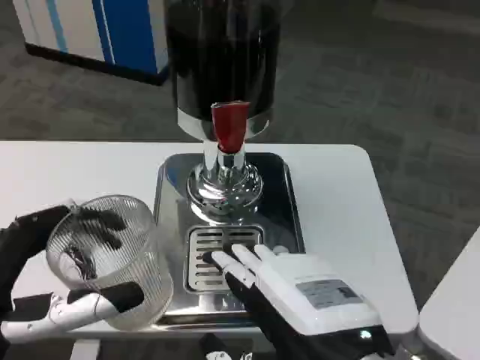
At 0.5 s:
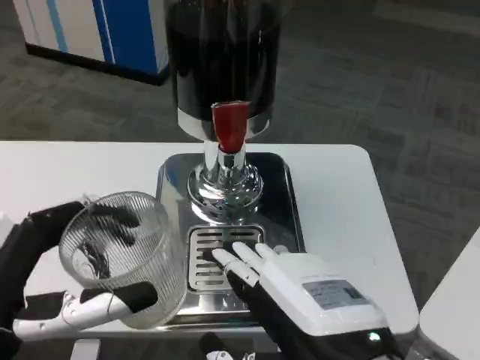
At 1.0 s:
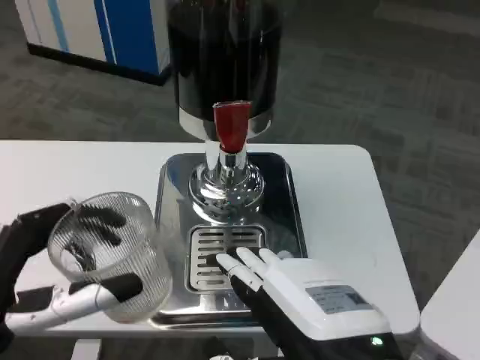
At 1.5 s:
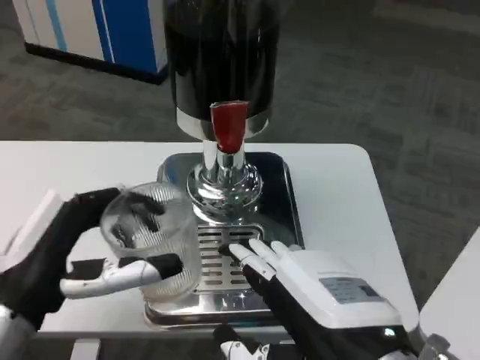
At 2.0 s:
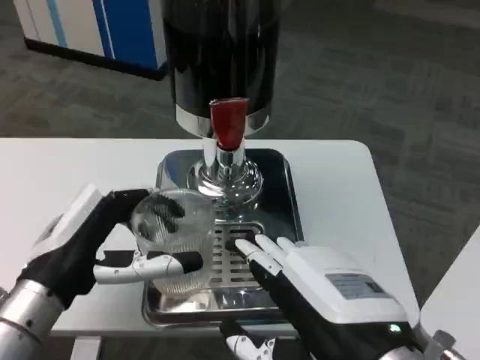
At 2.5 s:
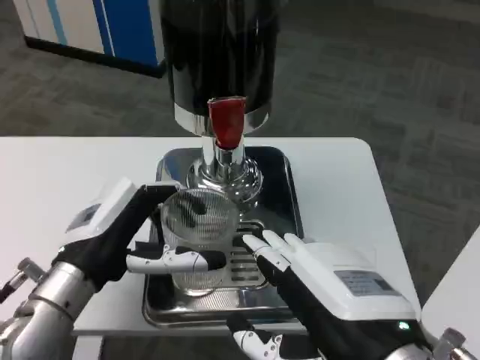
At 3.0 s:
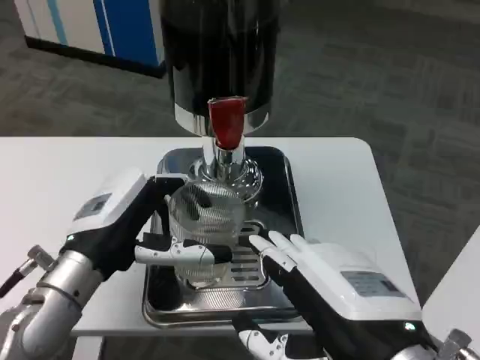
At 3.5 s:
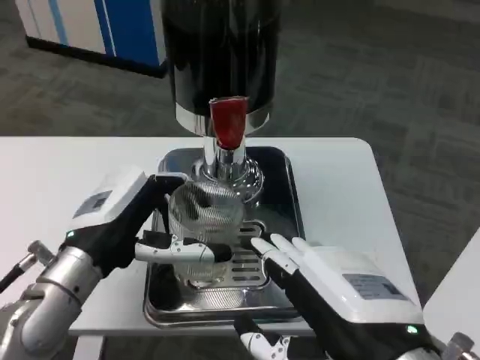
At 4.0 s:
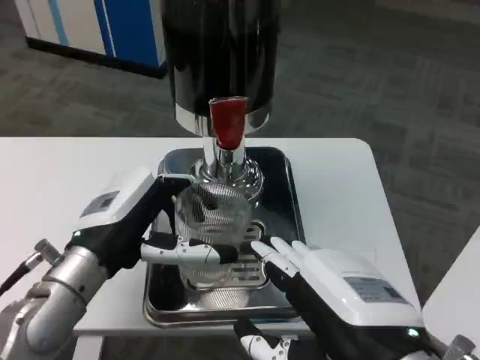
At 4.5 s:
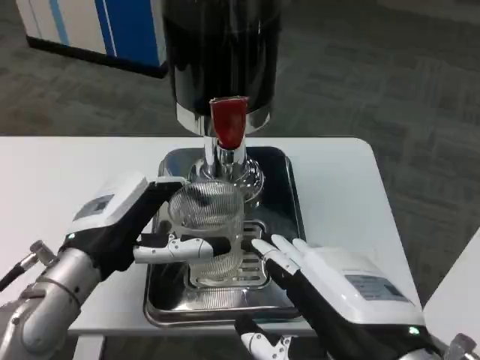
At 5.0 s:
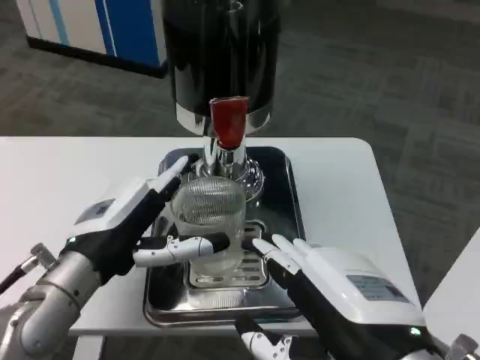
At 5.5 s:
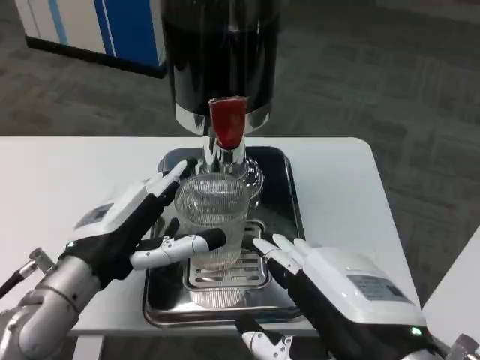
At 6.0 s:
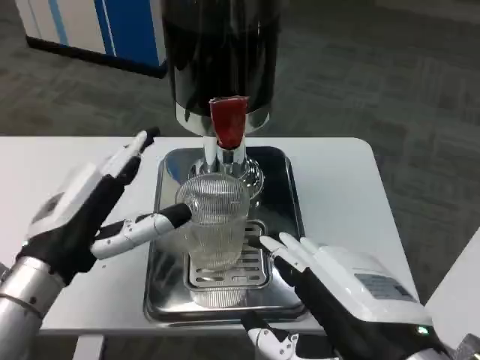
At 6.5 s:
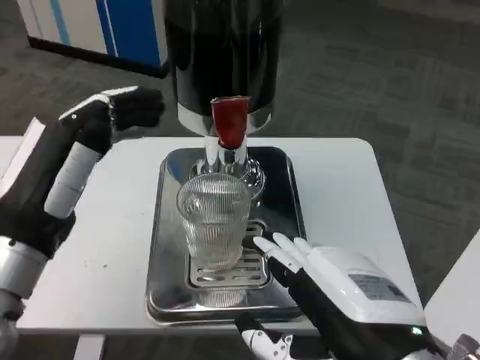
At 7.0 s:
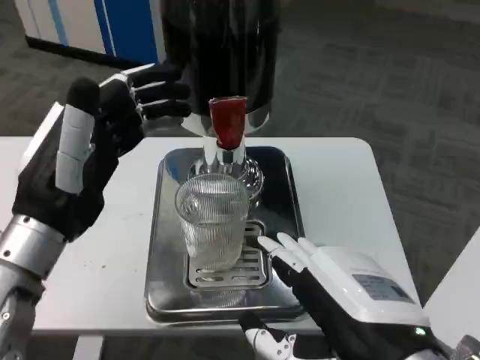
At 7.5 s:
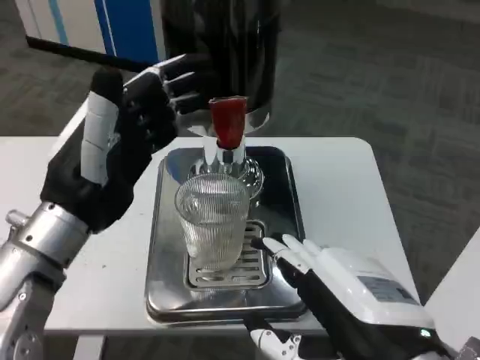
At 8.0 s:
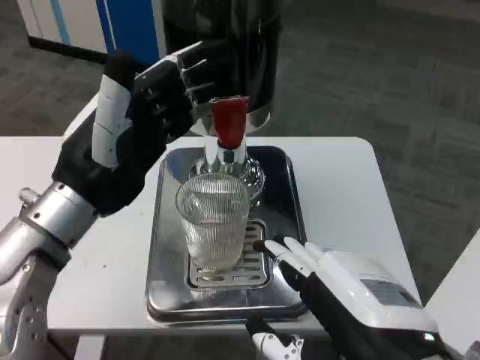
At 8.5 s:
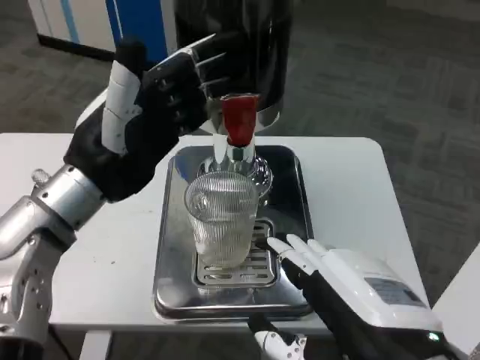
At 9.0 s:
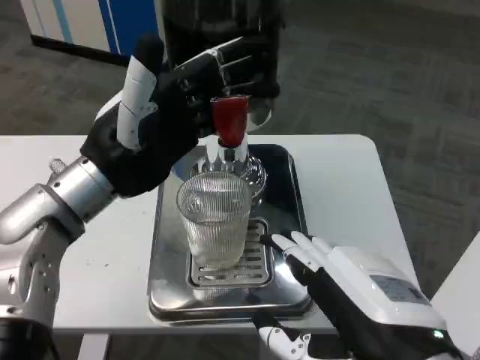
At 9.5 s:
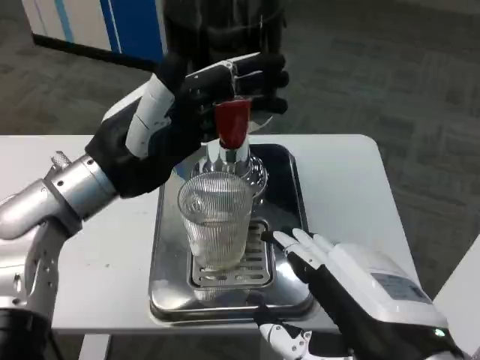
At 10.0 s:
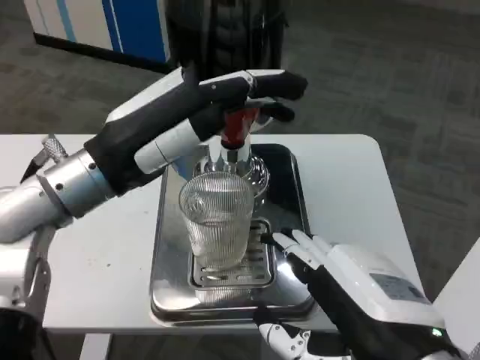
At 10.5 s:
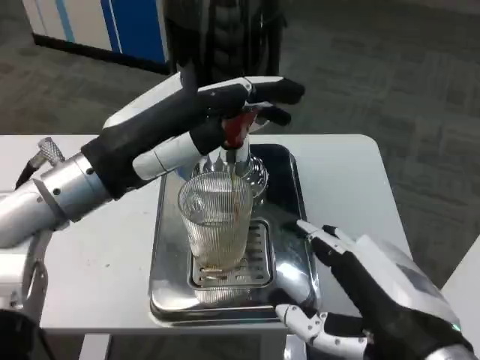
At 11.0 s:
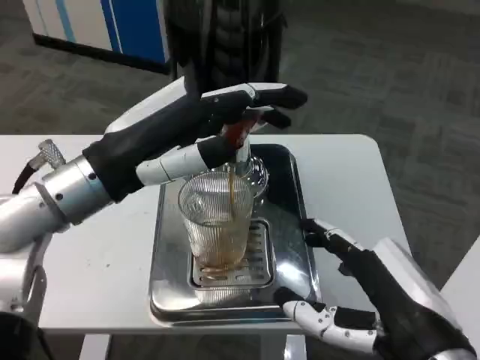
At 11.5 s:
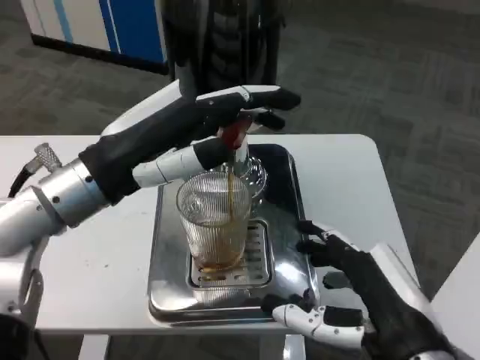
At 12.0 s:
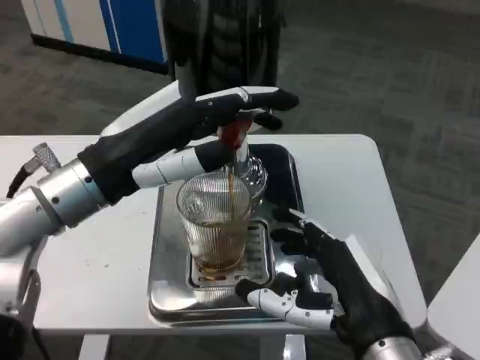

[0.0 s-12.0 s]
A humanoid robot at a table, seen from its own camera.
Task of the whole recording: Grasp the cup under the faucet to collect the drink, then remove the cup.
0.0 to 2.0 s: The left hand travels forward by roughly 10 cm.
6.0 to 8.0 s: The left hand is displaced upward by some 5 cm.
10.0 to 12.0 s: The right hand travels forward and downward by roughly 5 cm.

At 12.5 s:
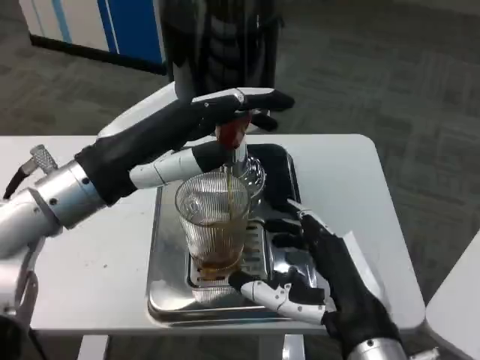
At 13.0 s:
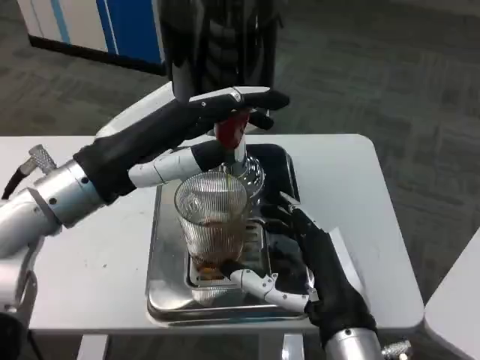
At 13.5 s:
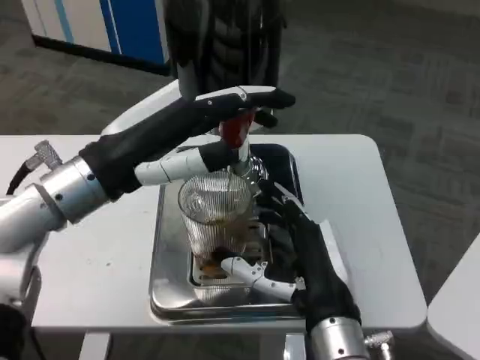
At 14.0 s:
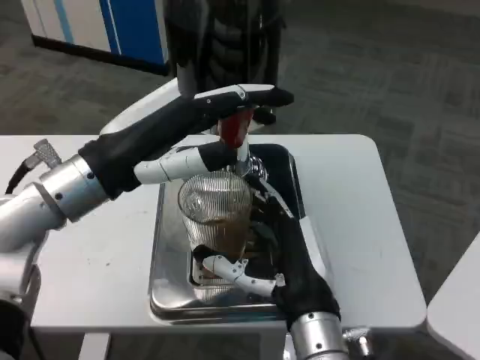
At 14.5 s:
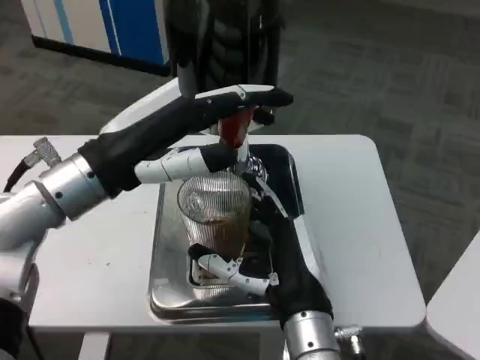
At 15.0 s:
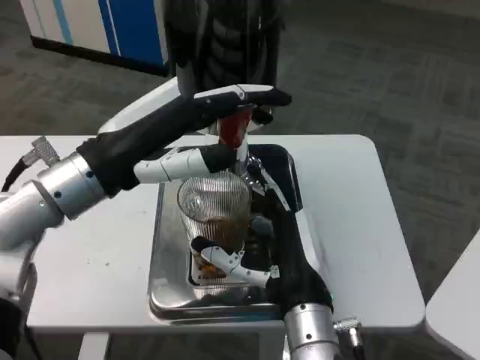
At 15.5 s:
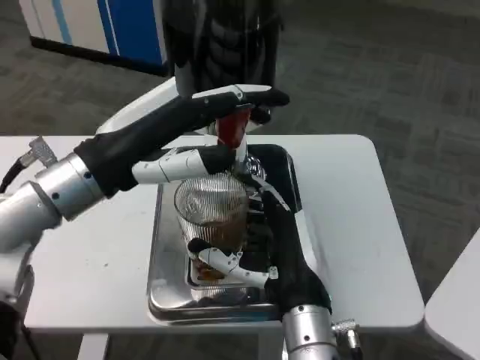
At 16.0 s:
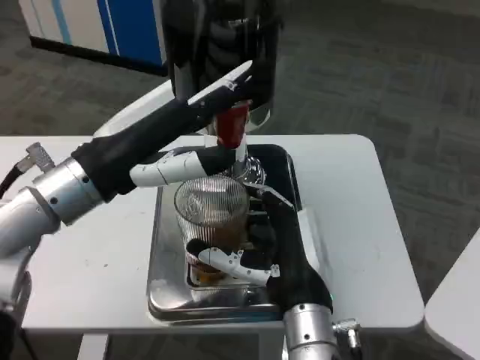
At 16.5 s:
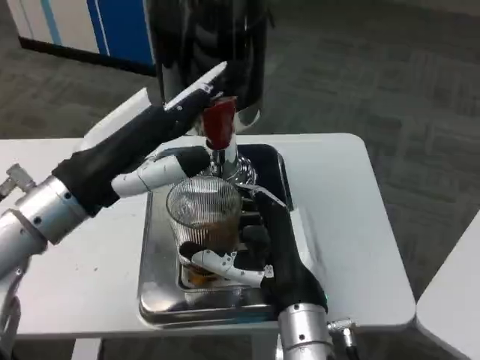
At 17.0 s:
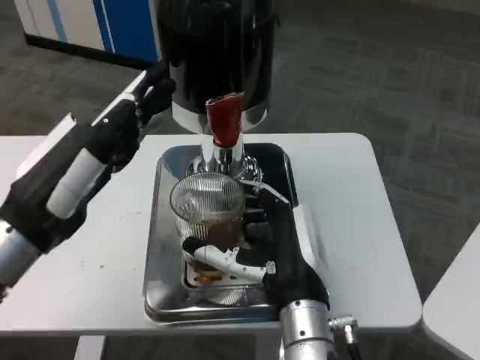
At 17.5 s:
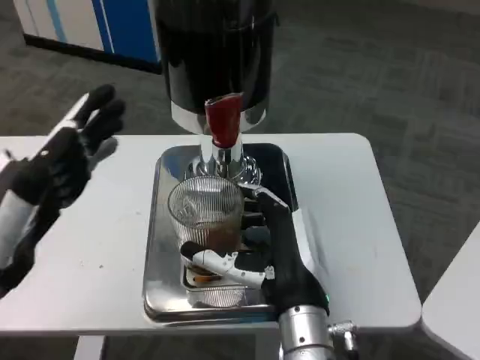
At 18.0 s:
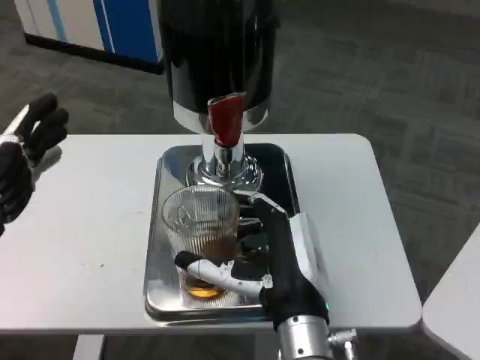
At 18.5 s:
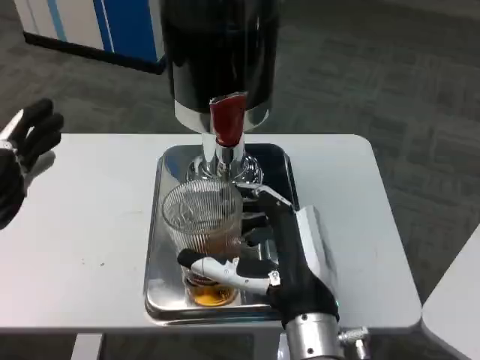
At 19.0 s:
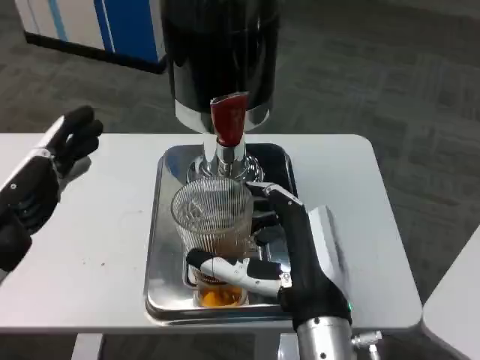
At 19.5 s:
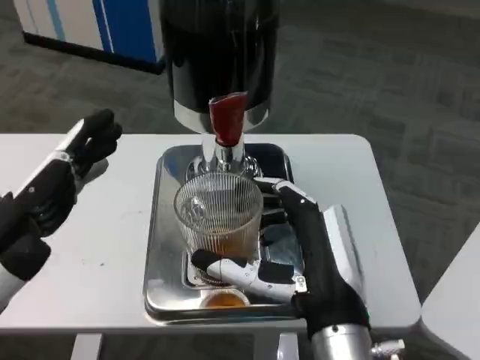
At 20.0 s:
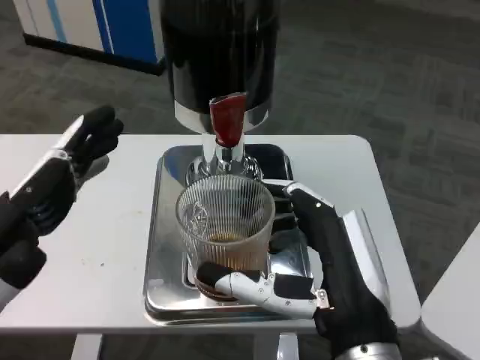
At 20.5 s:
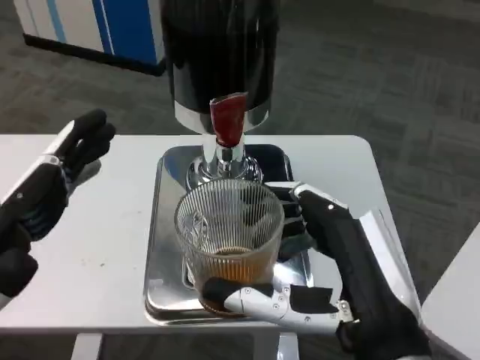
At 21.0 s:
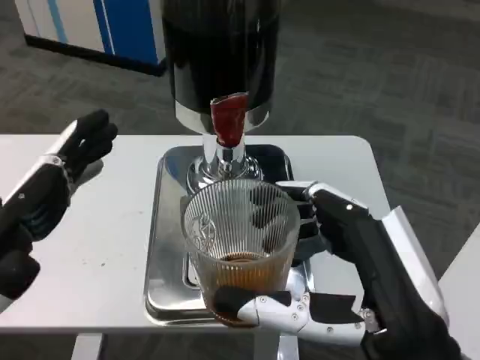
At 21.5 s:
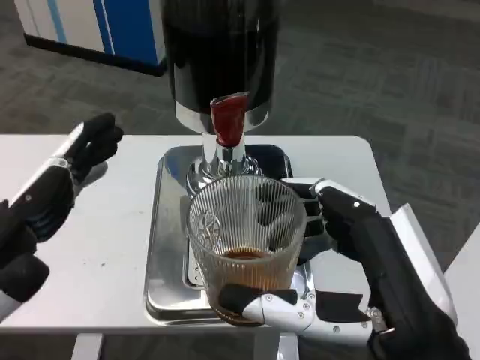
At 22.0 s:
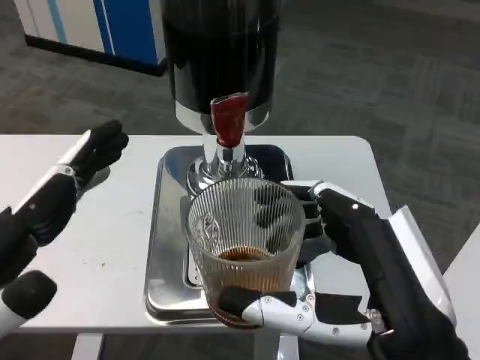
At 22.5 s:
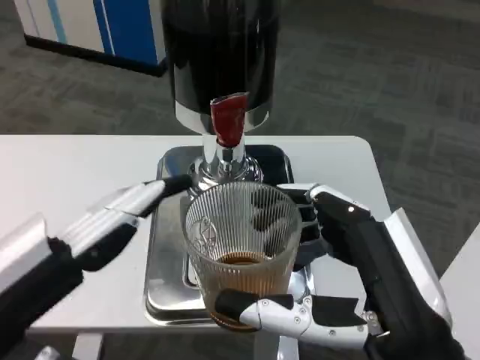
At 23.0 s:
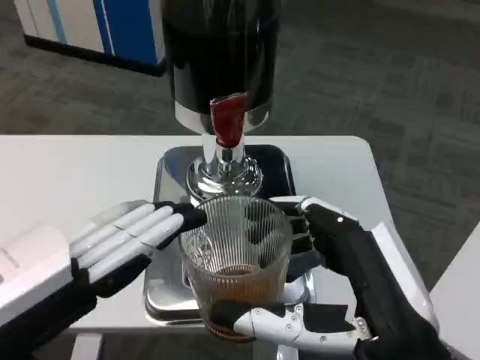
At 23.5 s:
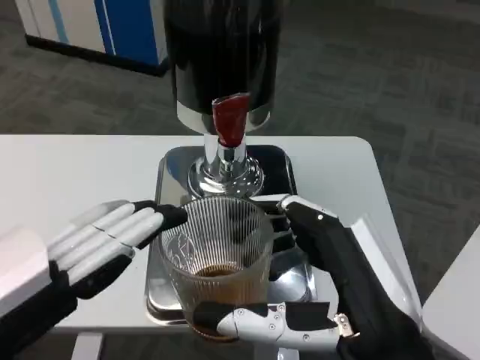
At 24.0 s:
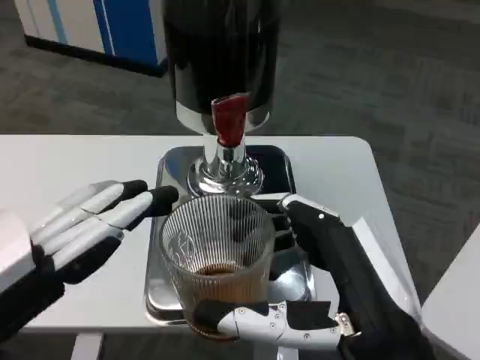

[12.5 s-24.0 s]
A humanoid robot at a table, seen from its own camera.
Task of the whole recording: Grasp the cup under the faucet to collect the drink, then remove the cup.
12.5 to 14.5 s: The right hand goes approximately 10 cm forward and to the left.
16.5 to 18.5 s: The left hand shifts roughly 15 cm backward and to the left.
18.5 to 20.0 s: The right hand goes some 5 cm backward.
20.0 to 22.0 s: The right hand moves roughly 5 cm.

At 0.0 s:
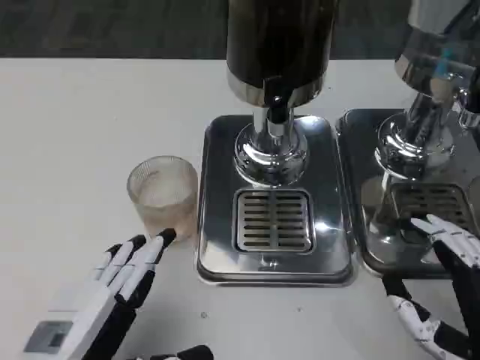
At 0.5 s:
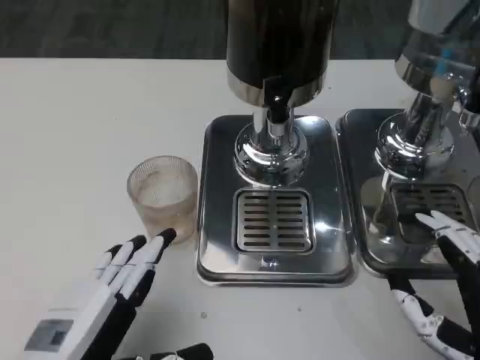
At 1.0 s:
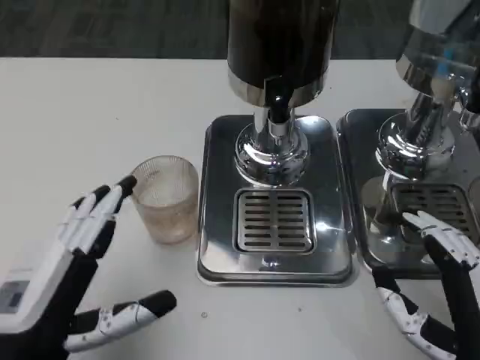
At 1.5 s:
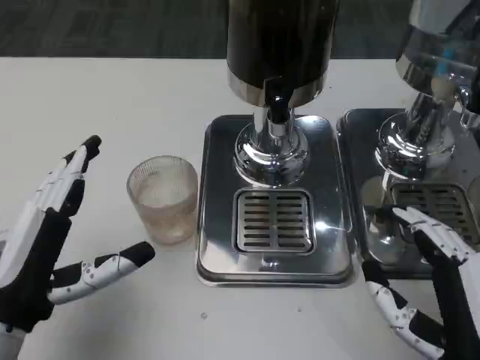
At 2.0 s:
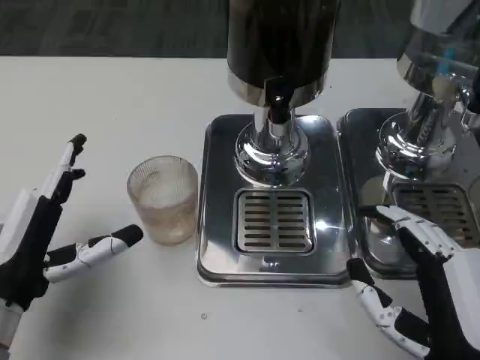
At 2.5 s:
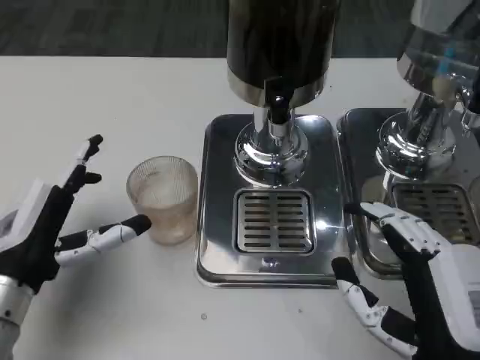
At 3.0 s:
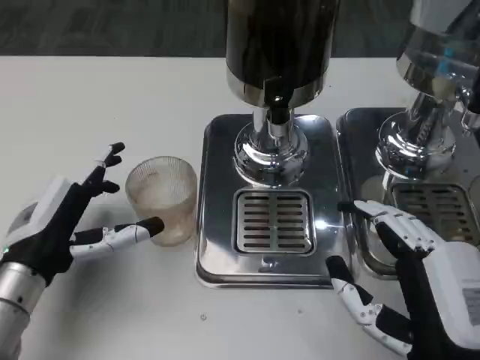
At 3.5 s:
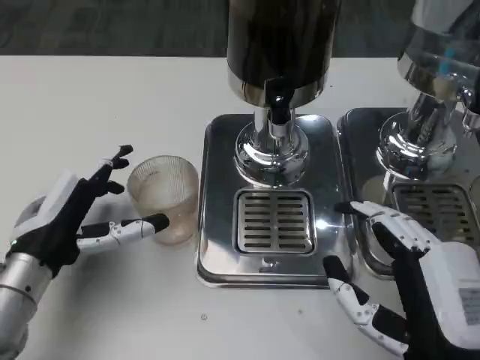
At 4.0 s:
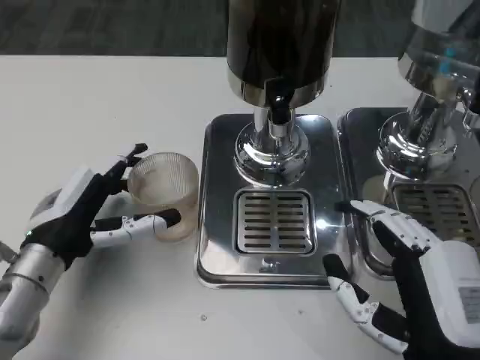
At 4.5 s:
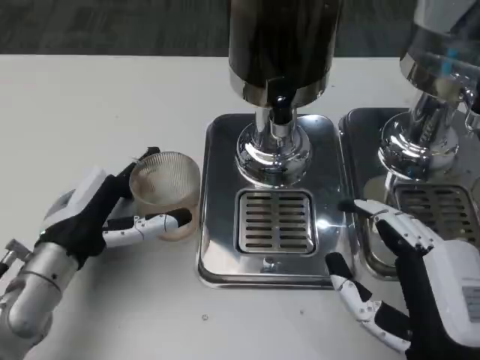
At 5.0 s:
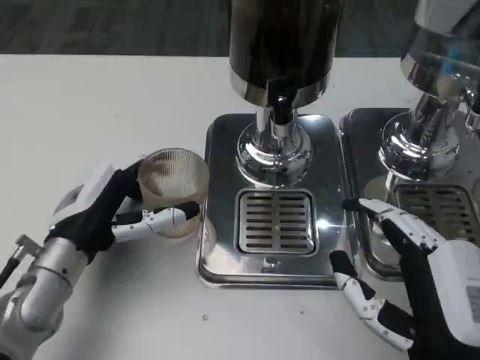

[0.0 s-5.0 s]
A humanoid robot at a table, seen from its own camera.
Task of the whole recording: Grasp the cup under the faucet to collect the drink, then remove the cup.
0.0 to 2.5 s: The left hand is displaced forward by some 10 cm.
2.5 to 5.0 s: The left hand shifts by roughly 5 cm.
